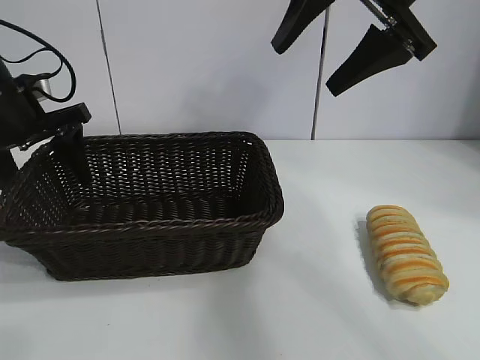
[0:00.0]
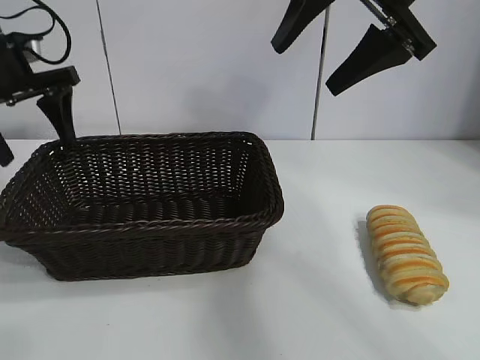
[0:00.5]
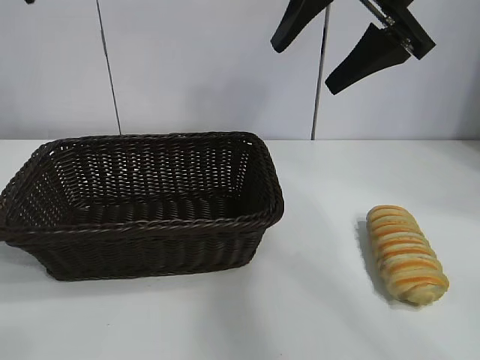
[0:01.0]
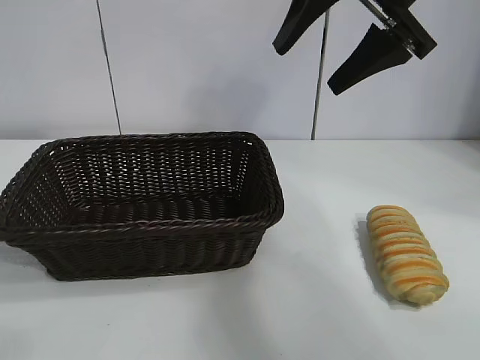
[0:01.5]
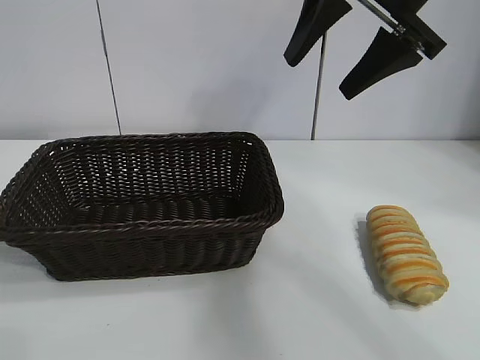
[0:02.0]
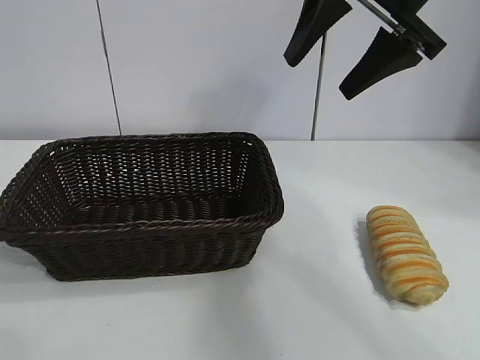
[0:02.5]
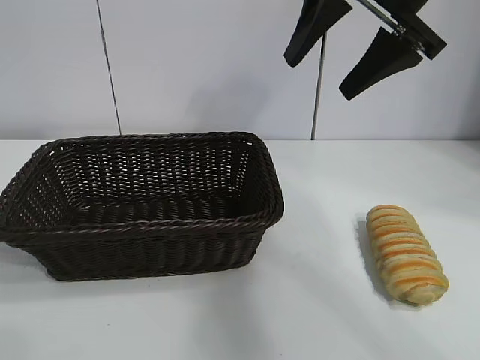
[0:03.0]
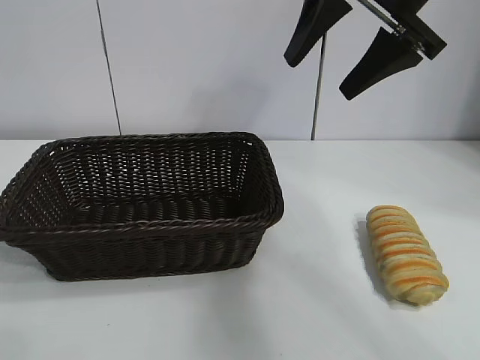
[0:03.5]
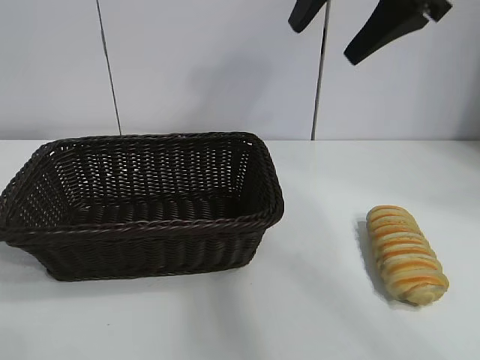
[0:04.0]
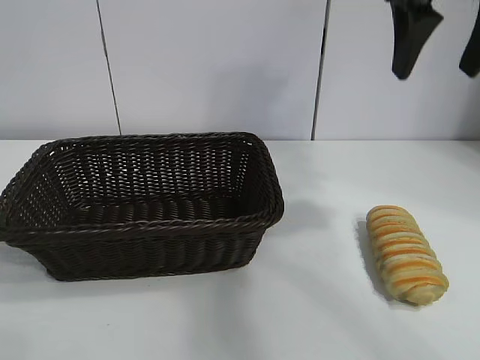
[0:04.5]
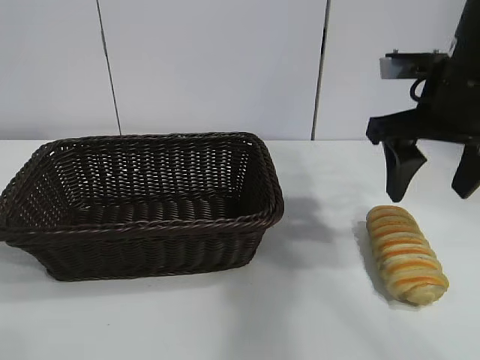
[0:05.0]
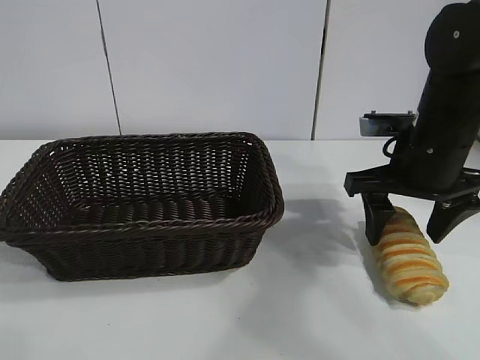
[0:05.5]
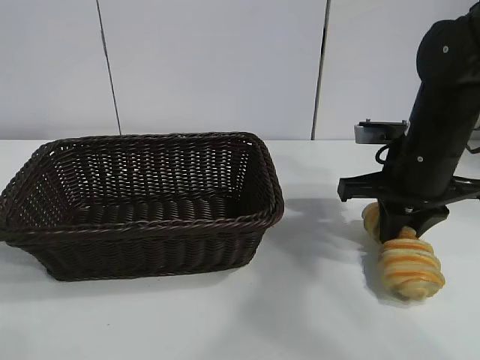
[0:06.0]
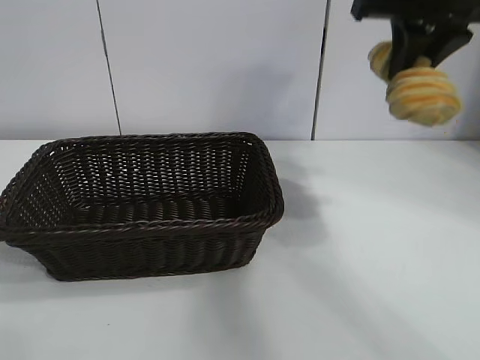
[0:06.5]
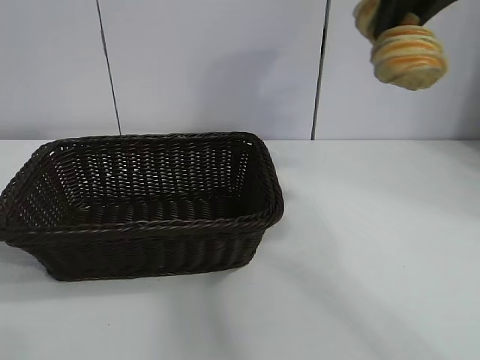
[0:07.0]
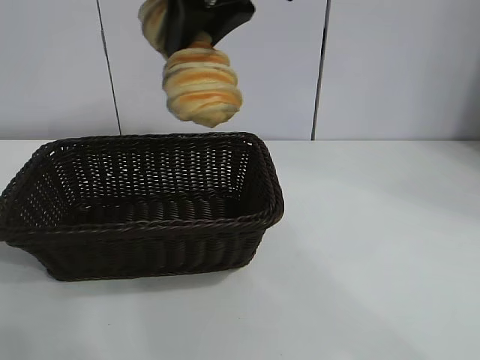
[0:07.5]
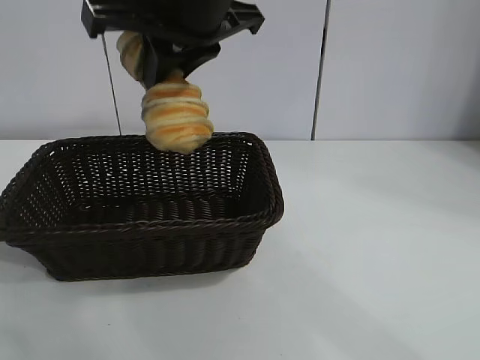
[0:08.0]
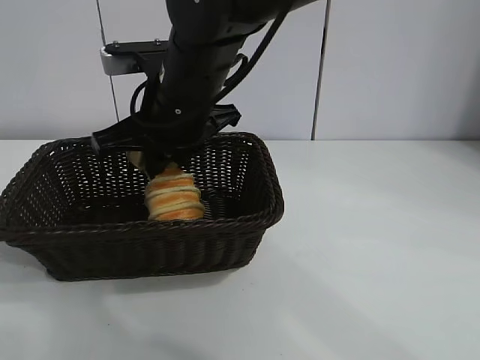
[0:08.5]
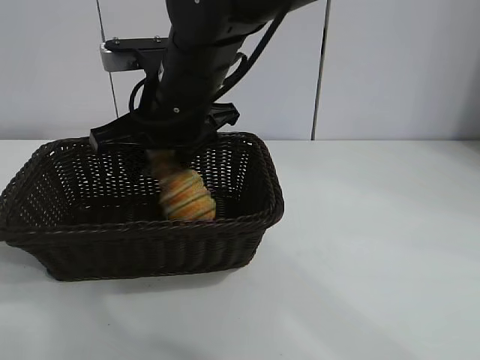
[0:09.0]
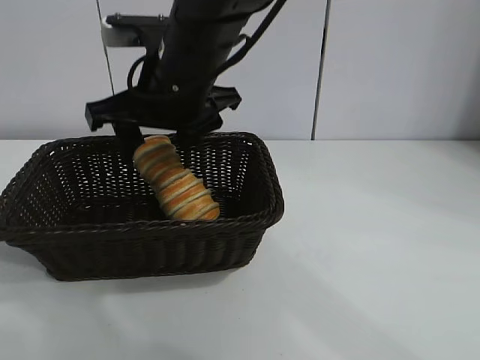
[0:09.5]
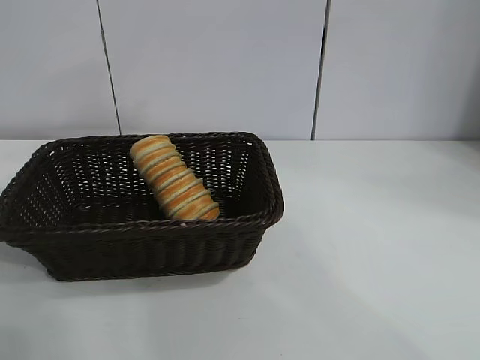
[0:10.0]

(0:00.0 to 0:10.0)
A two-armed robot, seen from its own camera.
Task of the whole recording: pick up the long bread and put it into the basket.
Step, 0:00.0 - 0:05.5: Grasp the long bread with right gripper.
Step, 0:06.0 - 0:09.0: Place the long bread in the basket with right gripper.
